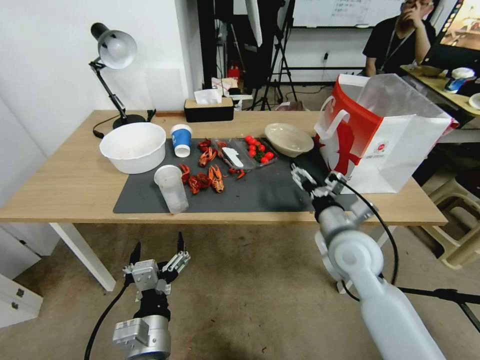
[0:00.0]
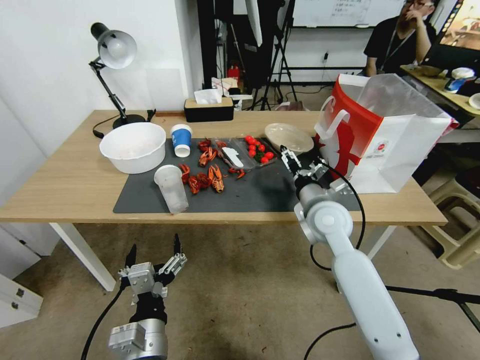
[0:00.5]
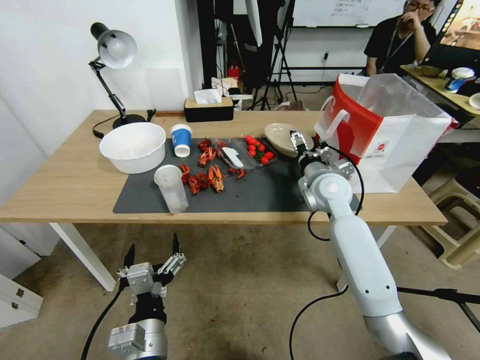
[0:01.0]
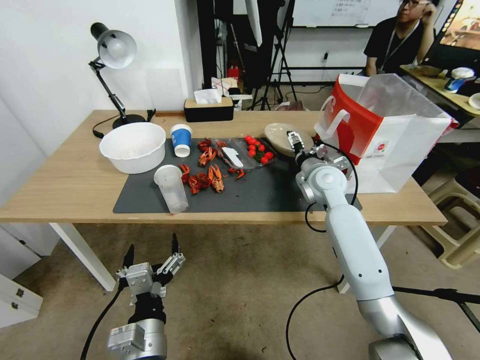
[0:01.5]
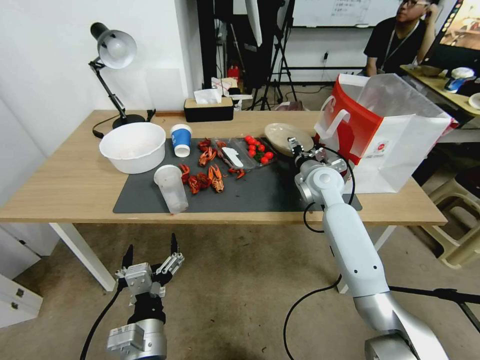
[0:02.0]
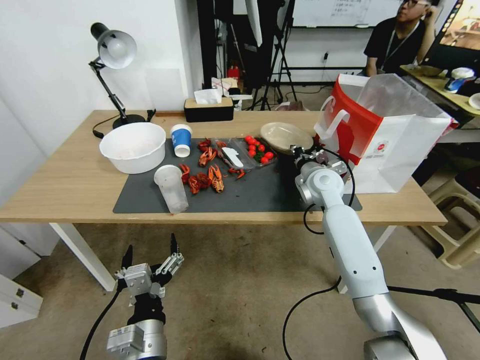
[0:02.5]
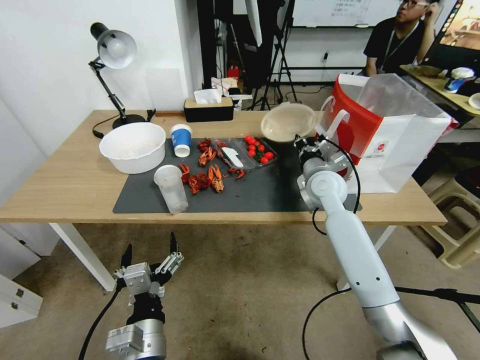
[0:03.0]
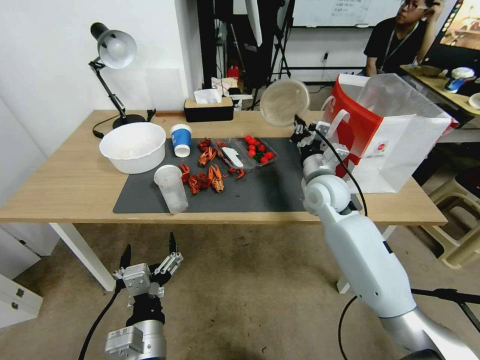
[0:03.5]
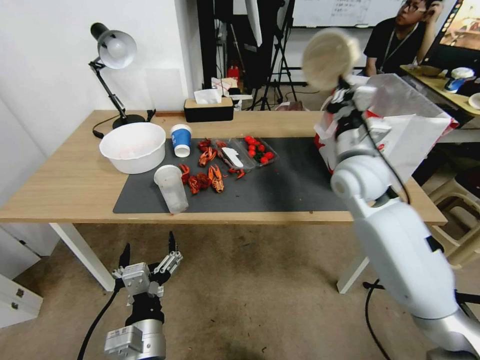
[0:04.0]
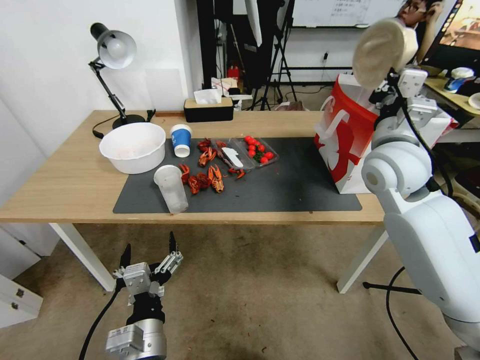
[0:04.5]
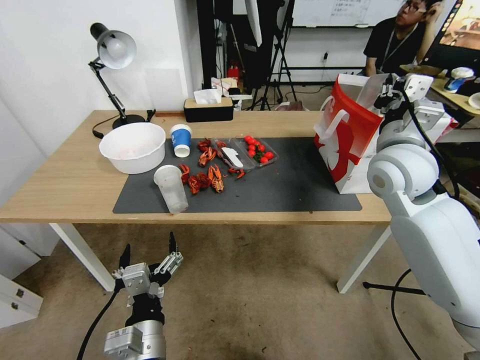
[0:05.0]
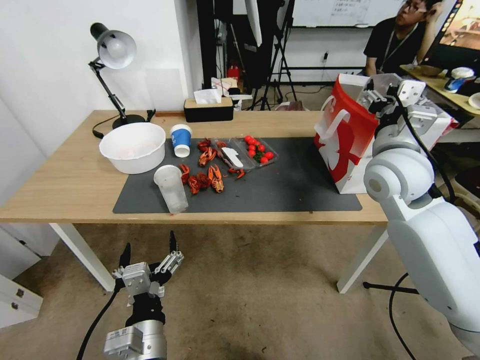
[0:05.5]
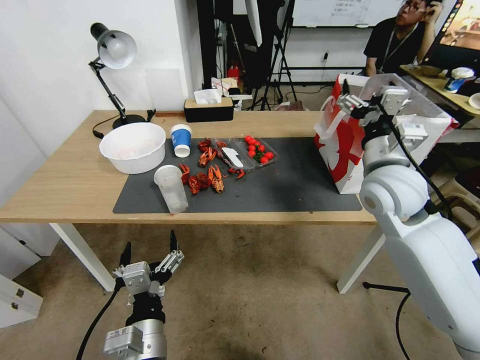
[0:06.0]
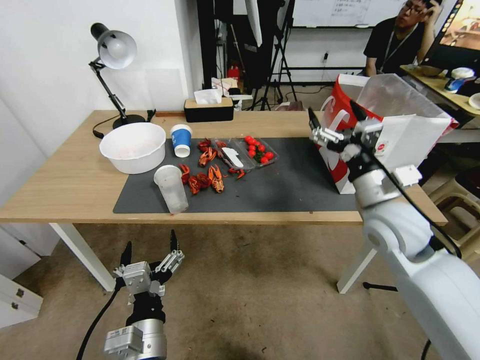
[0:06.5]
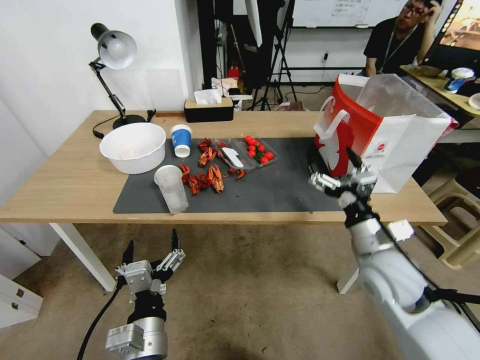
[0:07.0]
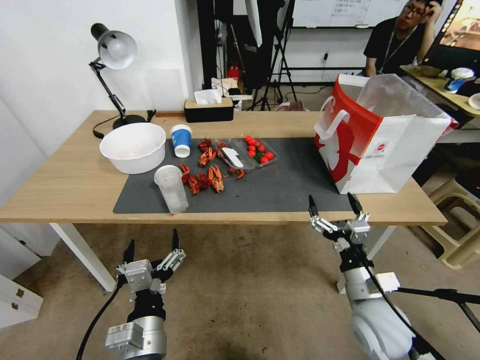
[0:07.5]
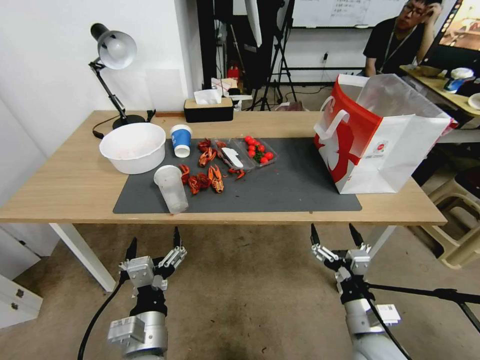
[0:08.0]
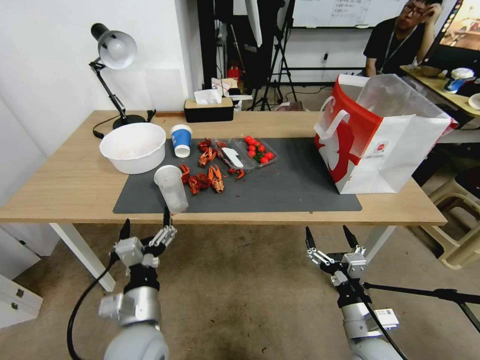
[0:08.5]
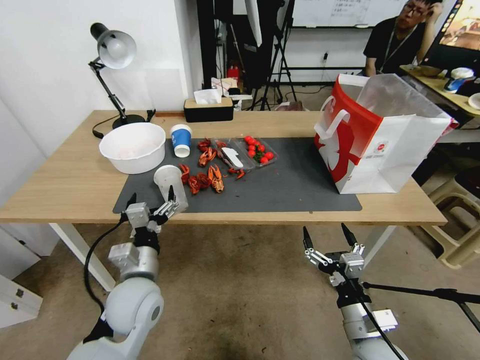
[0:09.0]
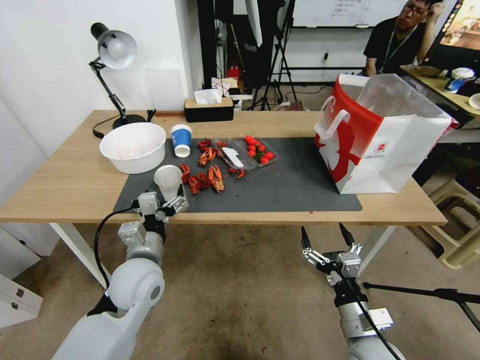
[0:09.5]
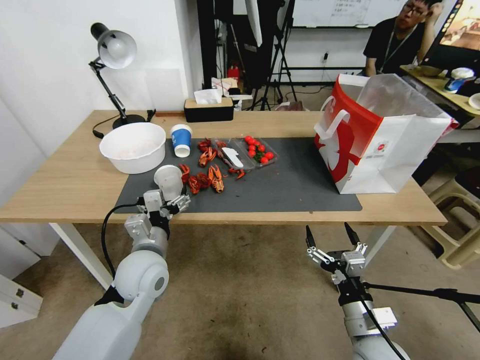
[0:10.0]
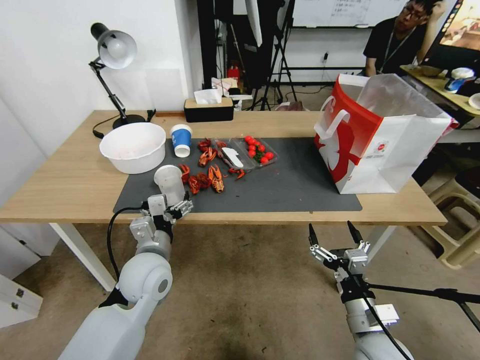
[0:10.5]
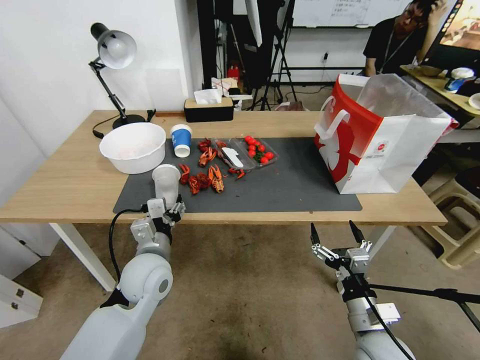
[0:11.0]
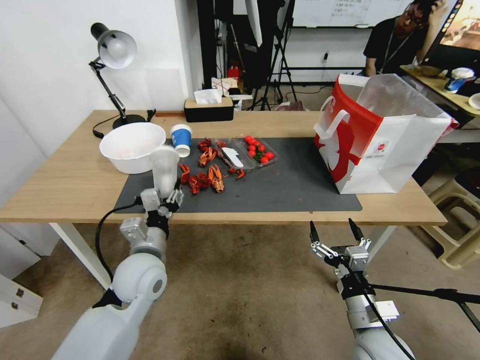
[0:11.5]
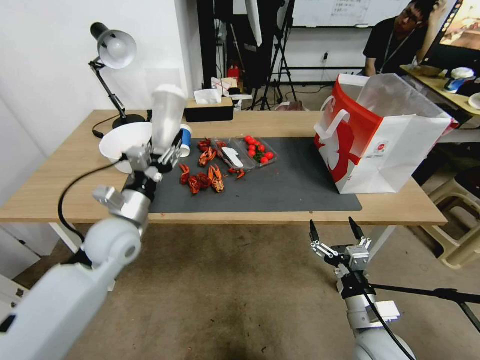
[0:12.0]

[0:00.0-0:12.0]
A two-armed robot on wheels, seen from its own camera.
0:00.0 to 0:02.0: The right gripper goes about 20 cm forward.
0:02.0 to 0:04.0: The right gripper goes some 10 cm upward and backward, and closes.
0:04.0 to 0:06.0: The right gripper travels backward by about 5 cm, and opens up.
0:06.0 to 0:08.0: The right gripper shifts approximately 35 cm downward and backward.
0:08.0 to 0:10.0: The left gripper heads forward, covering roughly 15 cm.
0:10.0 to 0:12.0: The left gripper closes up.

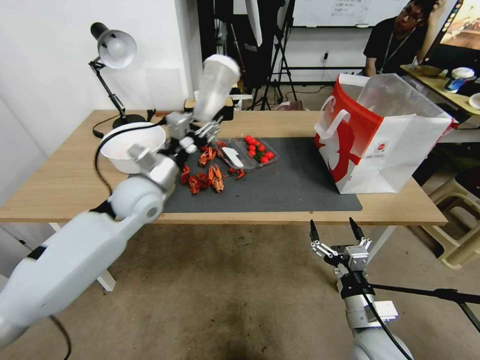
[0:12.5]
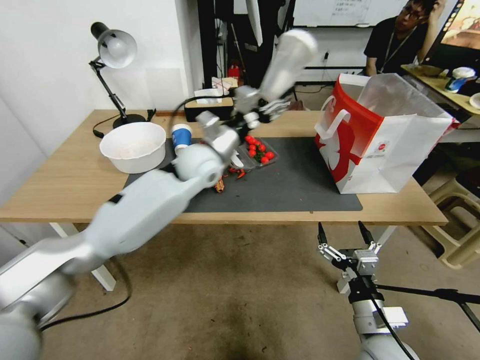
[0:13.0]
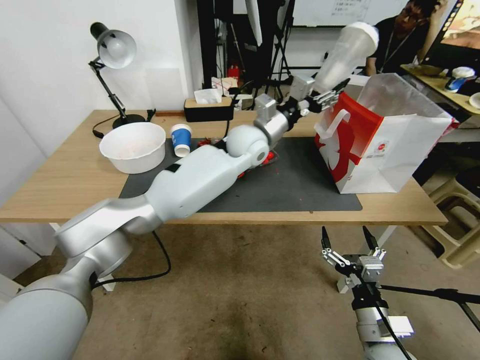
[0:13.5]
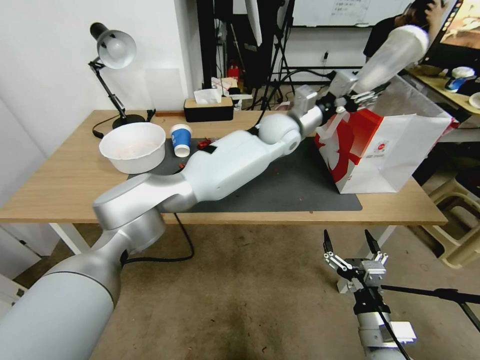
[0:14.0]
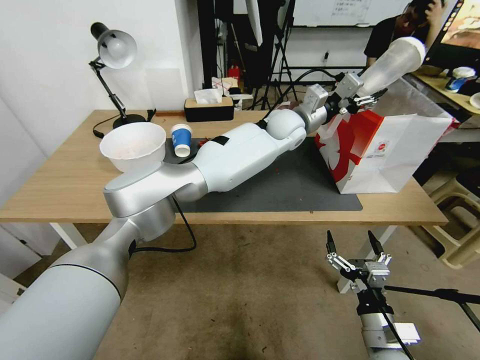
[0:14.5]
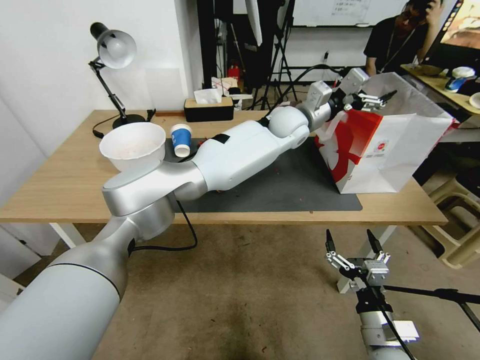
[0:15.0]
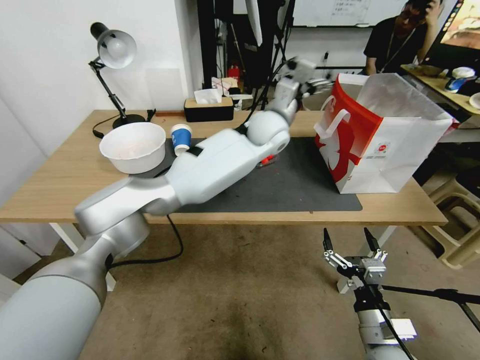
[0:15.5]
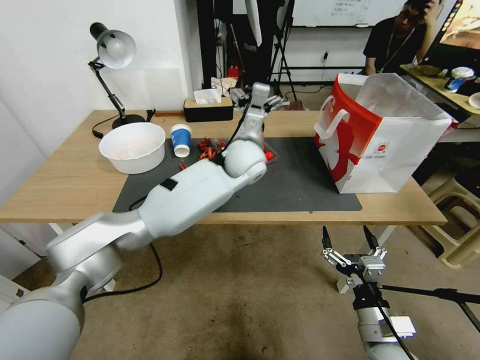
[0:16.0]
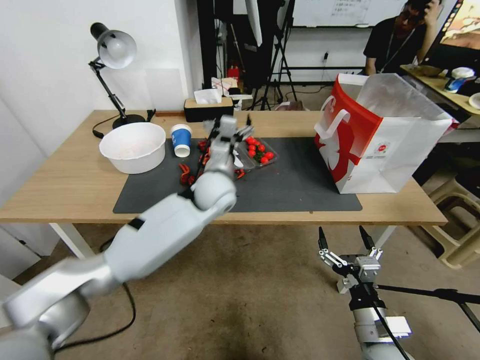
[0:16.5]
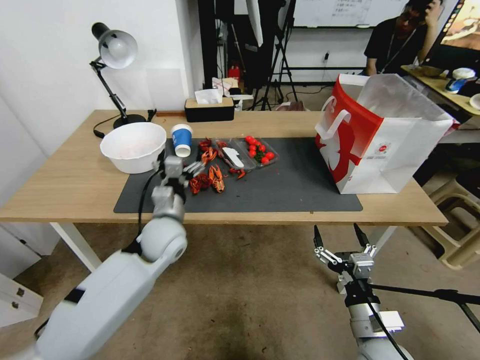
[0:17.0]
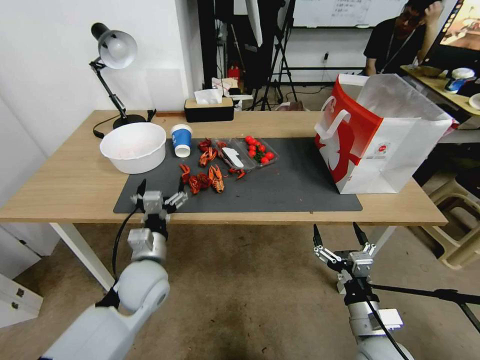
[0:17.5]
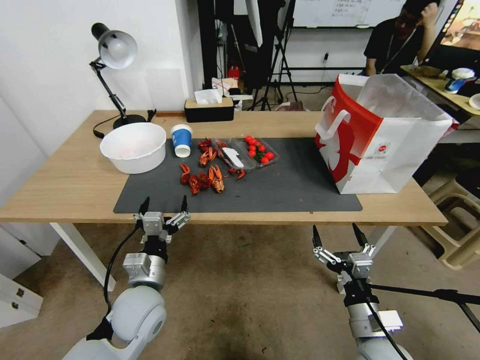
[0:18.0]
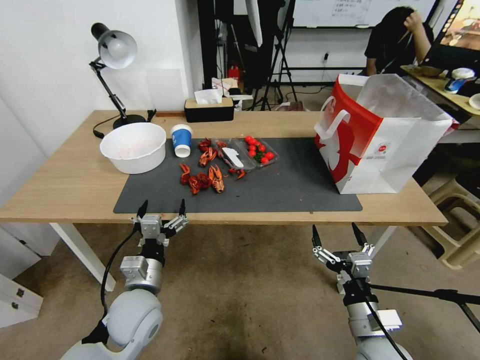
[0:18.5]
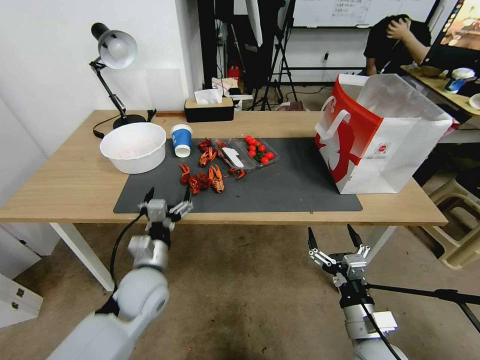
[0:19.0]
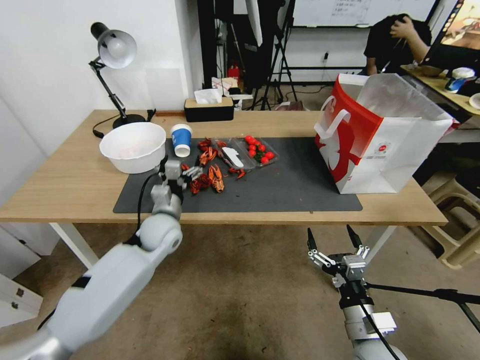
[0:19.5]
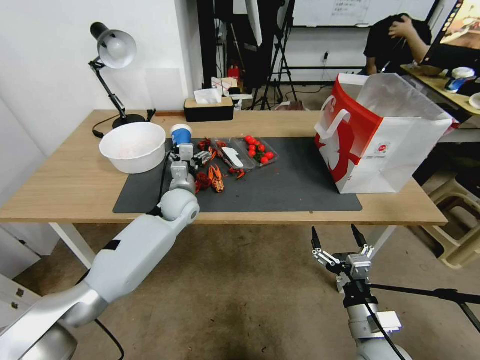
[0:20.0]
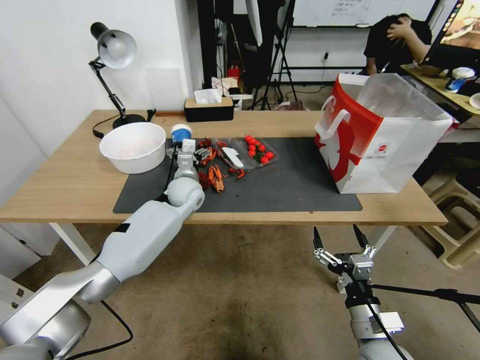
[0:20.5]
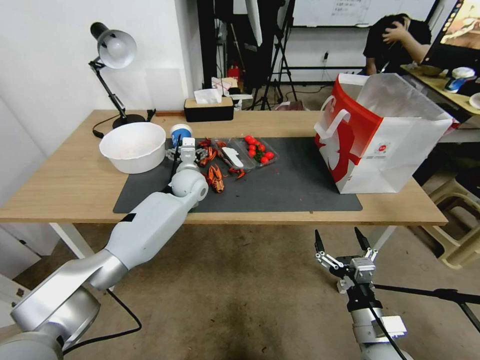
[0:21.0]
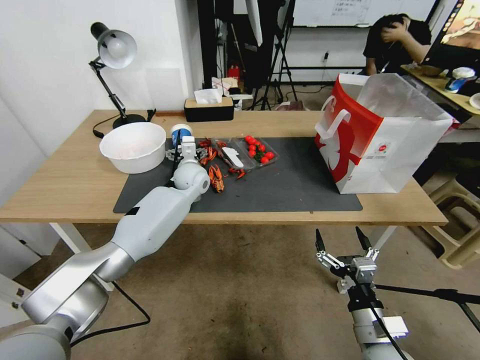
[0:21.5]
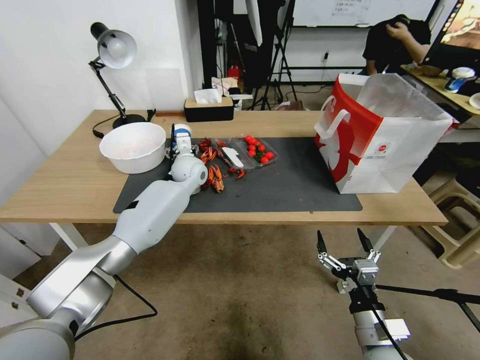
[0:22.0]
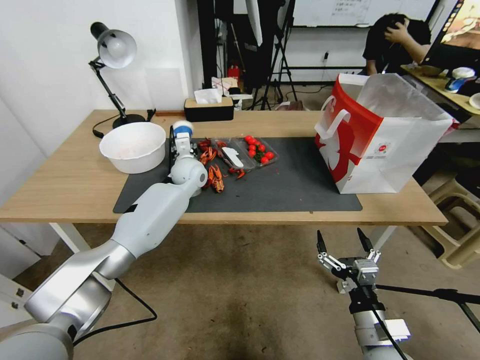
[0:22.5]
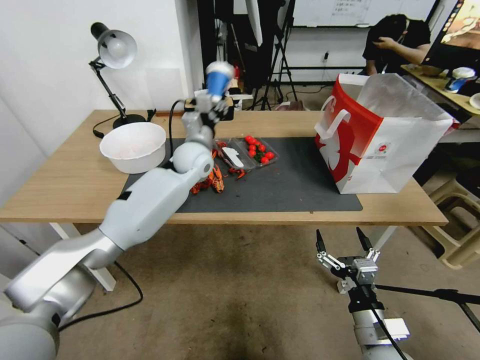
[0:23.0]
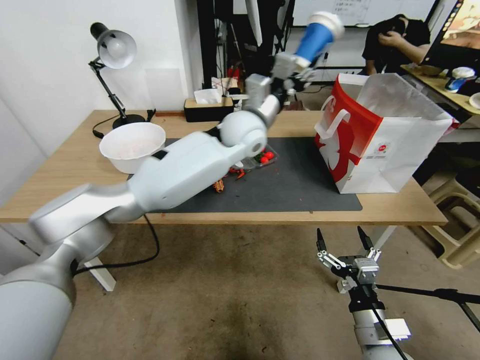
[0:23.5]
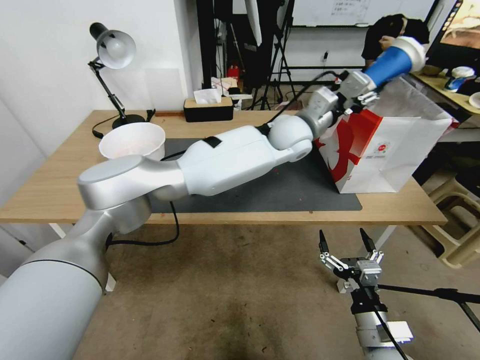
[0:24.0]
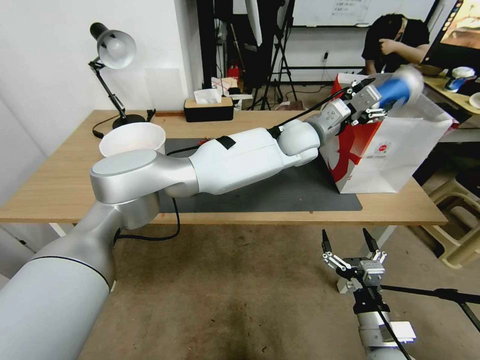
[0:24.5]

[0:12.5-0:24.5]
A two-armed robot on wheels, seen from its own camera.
0:12.5 to 0:14.5: The left gripper moves to the right and forward, some 40 cm.
0:14.5 to 0:16.5: The left gripper goes some 25 cm to the left, backward and downward, and opens up.
0:16.5 to 0:18.5: The left gripper shifts about 30 cm backward, to the left and downward.
0:18.5 to 0:20.5: The left gripper moves forward, roughly 30 cm.
0:20.5 to 0:22.5: The left gripper is displaced forward by about 5 cm, and closes up.
0:22.5 to 0:24.5: The left gripper shifts roughly 30 cm to the right and upward, and opens its fingers.

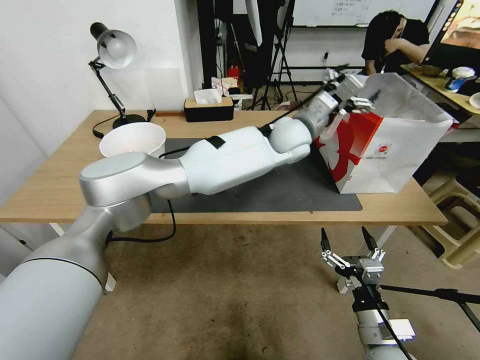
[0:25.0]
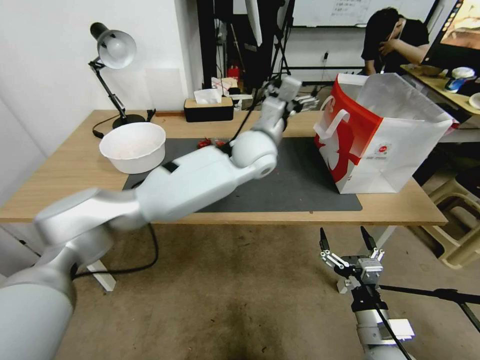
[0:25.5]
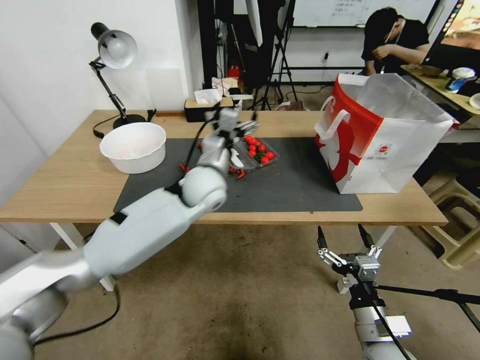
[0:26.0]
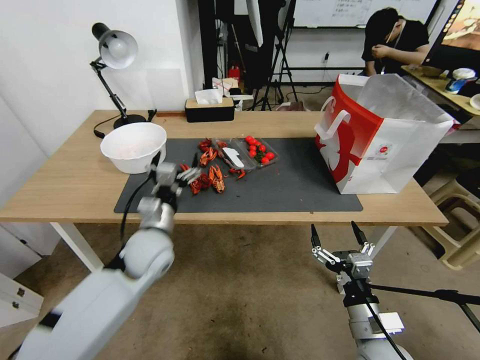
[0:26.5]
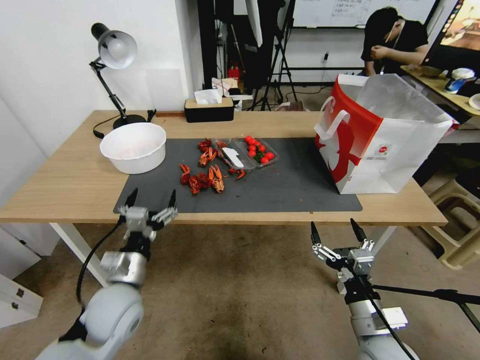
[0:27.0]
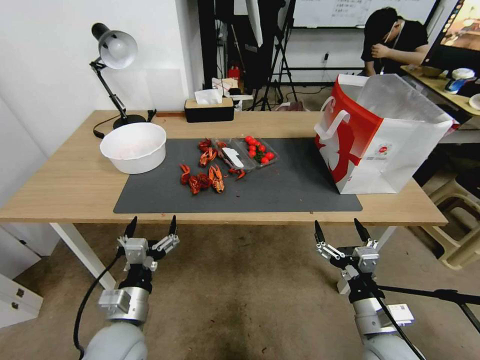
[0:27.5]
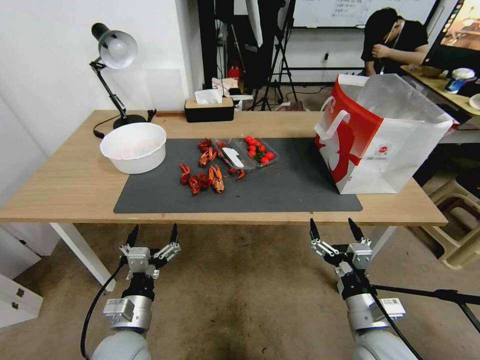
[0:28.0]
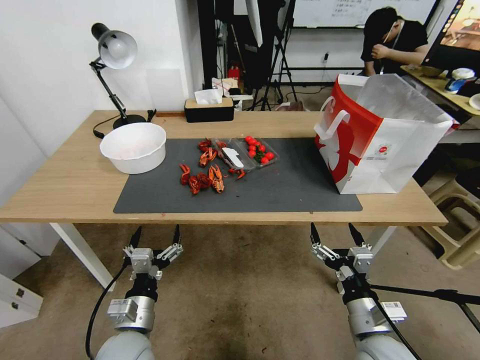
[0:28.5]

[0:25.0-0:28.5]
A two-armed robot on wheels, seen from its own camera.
0:25.0 to 0:27.0: The left gripper travels to the left, backward and downward by roughly 50 cm.
0:27.0 to 0:28.5: The left gripper moves backward, some 5 cm.
